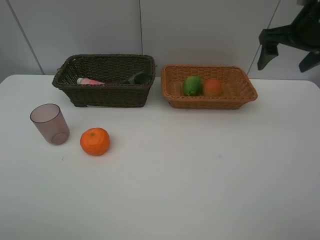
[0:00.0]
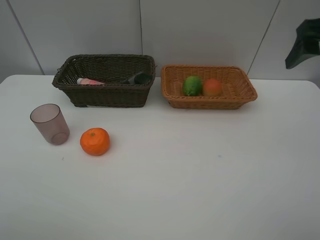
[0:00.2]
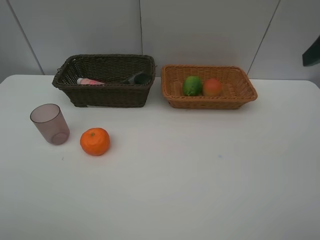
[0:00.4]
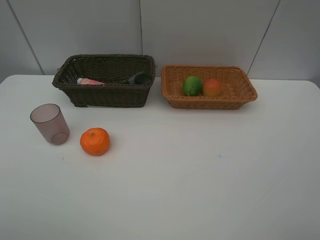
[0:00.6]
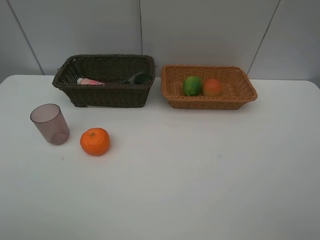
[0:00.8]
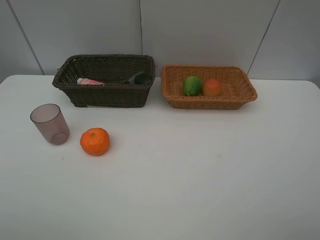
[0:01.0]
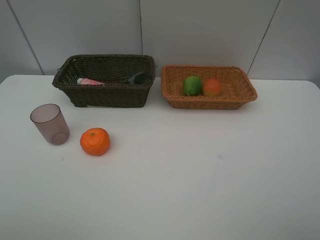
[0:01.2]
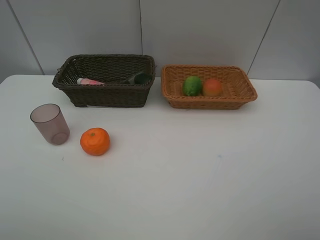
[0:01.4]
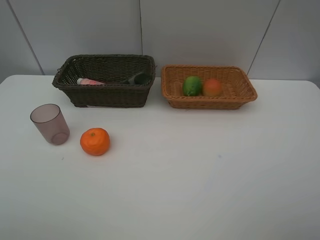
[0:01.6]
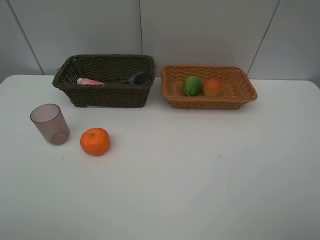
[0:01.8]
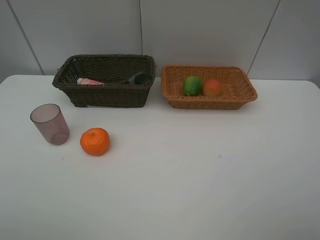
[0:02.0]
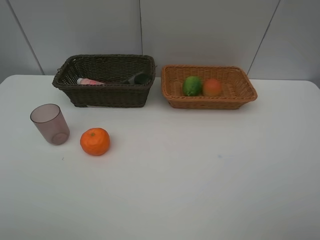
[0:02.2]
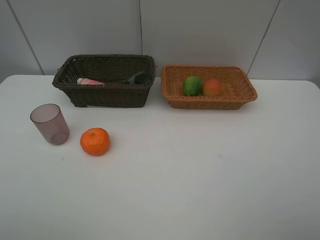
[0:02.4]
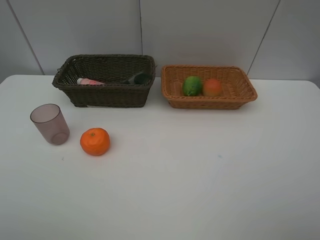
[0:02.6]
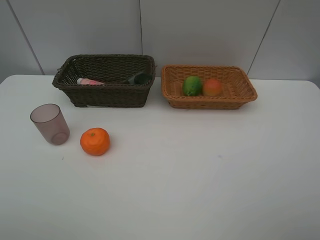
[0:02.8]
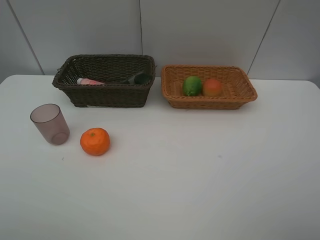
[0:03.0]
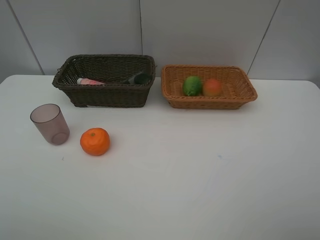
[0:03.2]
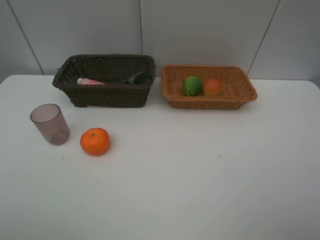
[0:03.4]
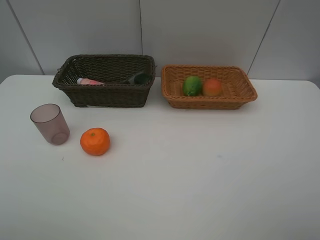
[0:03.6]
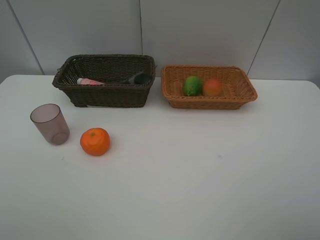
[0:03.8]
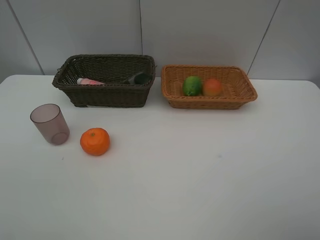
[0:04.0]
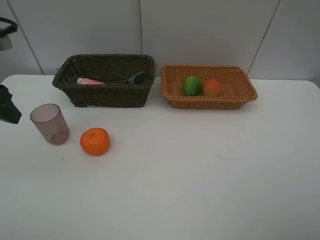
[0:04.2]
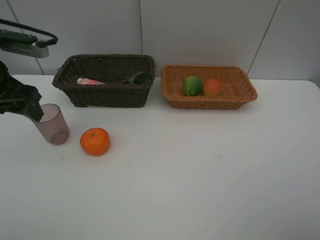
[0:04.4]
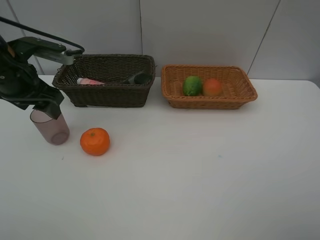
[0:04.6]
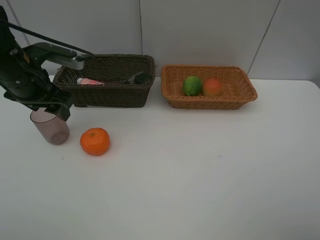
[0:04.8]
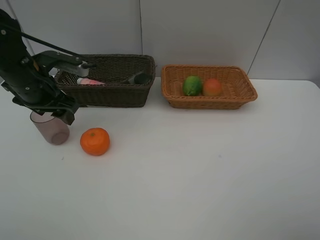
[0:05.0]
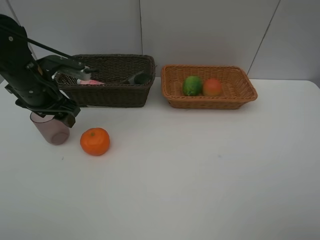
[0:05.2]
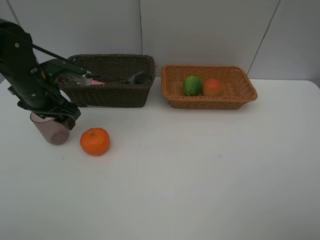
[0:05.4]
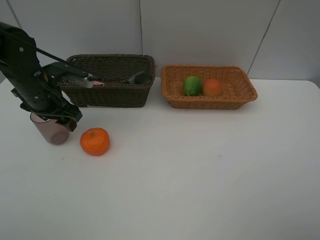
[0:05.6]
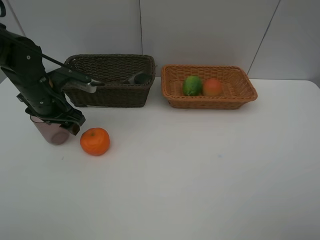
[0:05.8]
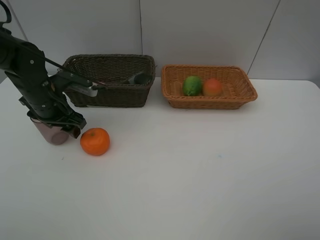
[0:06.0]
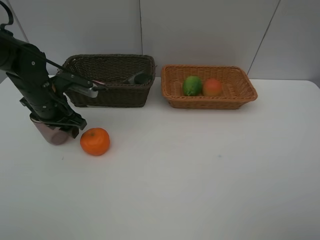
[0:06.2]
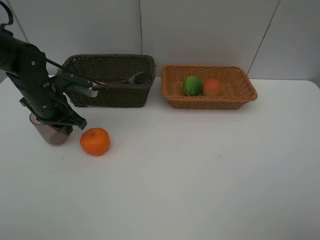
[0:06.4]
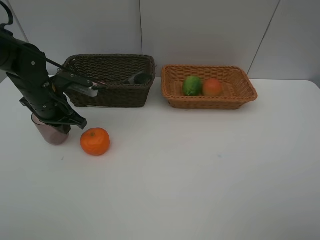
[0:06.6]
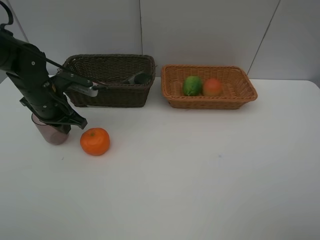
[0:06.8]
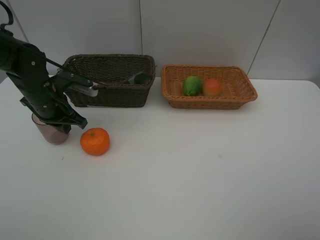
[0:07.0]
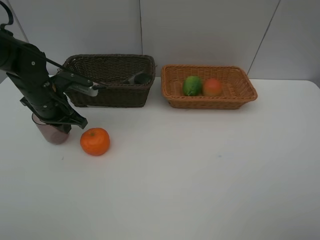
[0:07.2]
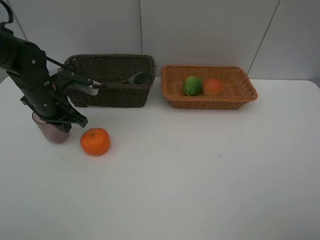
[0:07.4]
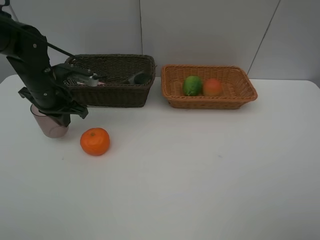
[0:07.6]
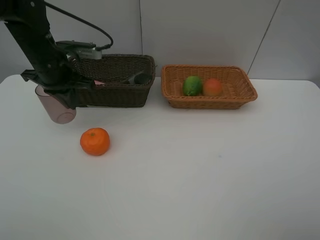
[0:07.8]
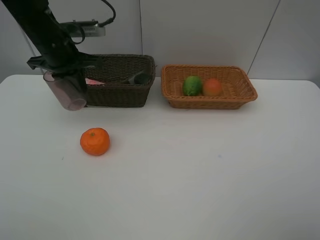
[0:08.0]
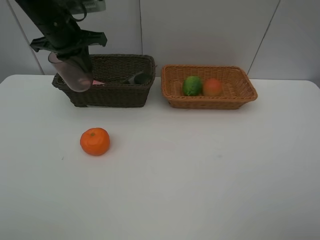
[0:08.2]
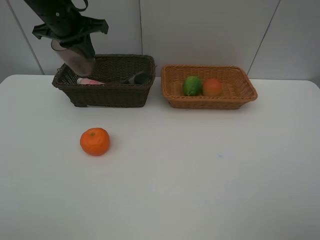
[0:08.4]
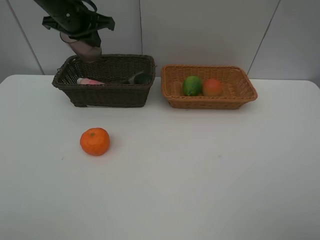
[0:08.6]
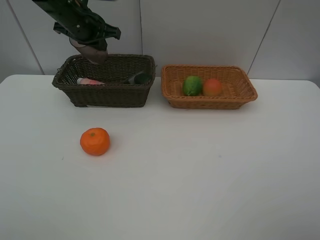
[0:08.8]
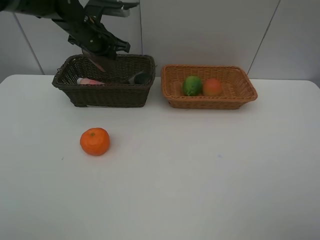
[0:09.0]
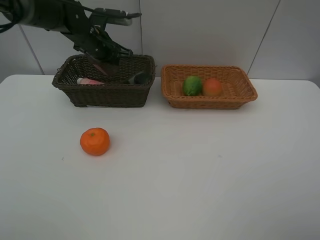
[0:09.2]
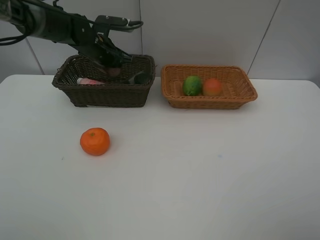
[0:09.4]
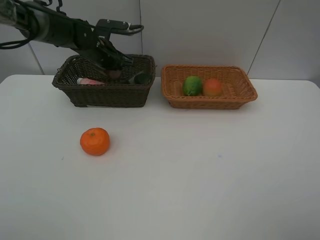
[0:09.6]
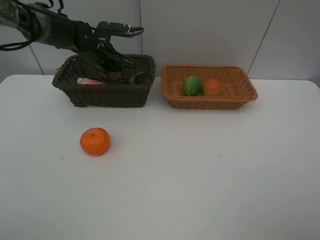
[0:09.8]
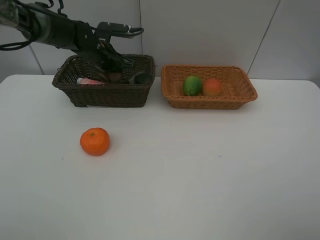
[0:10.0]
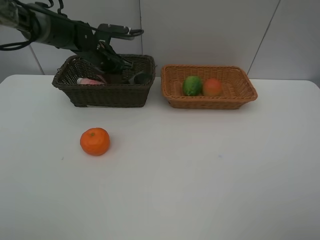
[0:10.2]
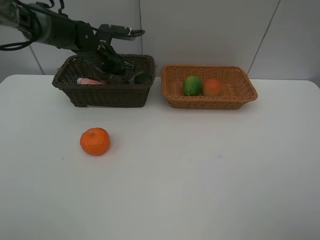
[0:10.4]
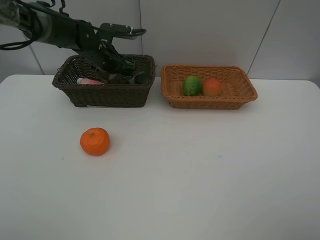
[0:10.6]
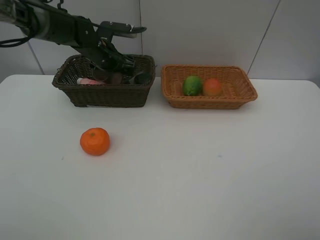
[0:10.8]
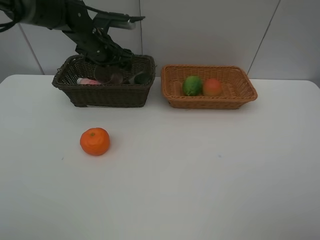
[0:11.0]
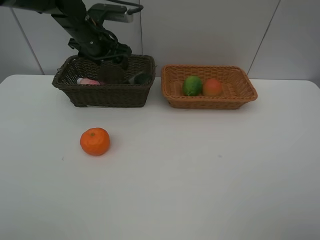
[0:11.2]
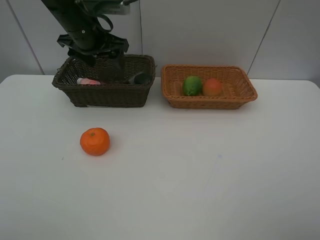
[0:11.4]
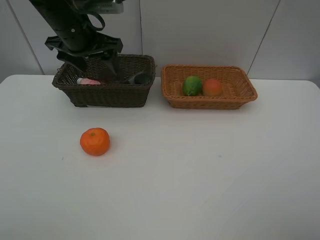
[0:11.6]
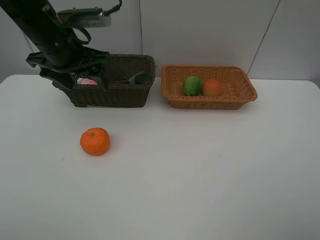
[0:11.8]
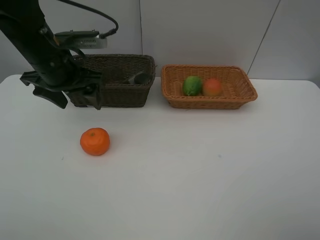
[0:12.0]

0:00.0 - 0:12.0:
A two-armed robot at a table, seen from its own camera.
Task of the whole recording: place multiple objects separately in different baskets.
0:00.0 - 0:01.6: The right gripper goes approximately 35 cm backward.
0:01.6 - 0:03.0: Both grippers stay about where they are.
0:03.0 - 0:04.4: The left gripper travels forward by some 25 cm.
0:04.4 - 0:06.0: The left gripper is displaced downward and forward by some 15 cm.
0:06.0 - 0:07.6: The left gripper closes.
0:07.6 - 0:09.0: The left gripper moves forward, to the right and upward, roughly 15 cm.
0:09.0 - 0:10.4: The left gripper heads downward, covering roughly 5 cm, and opens its fingers.
0:10.4 - 0:12.0: The left gripper moves backward and upward, roughly 20 cm, and opens its fingers.

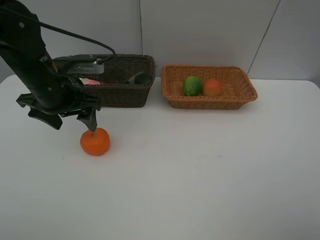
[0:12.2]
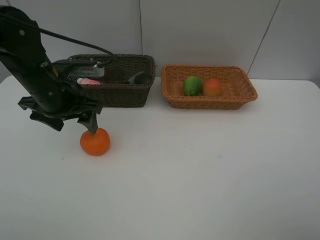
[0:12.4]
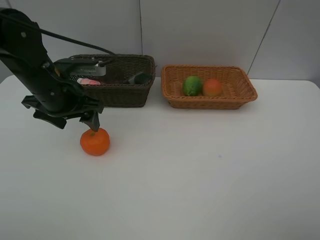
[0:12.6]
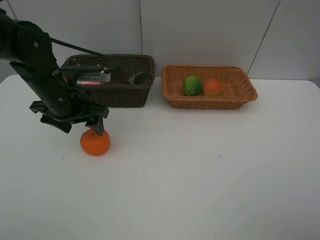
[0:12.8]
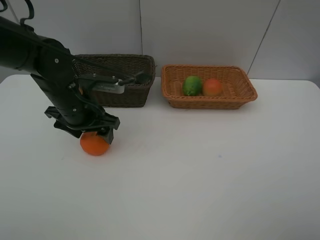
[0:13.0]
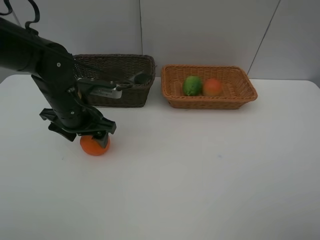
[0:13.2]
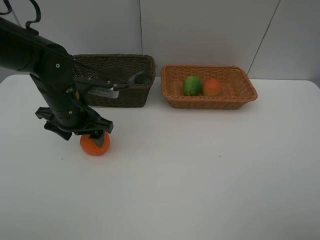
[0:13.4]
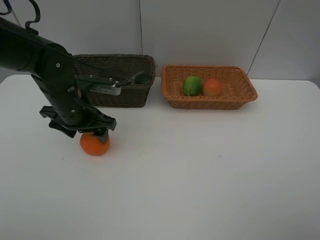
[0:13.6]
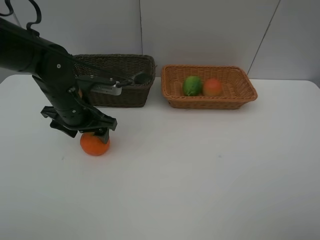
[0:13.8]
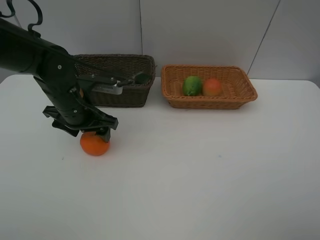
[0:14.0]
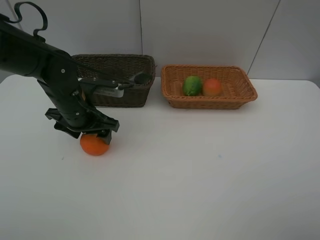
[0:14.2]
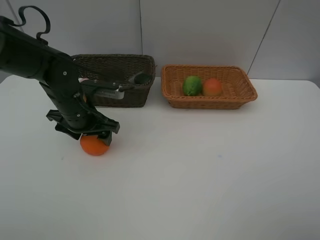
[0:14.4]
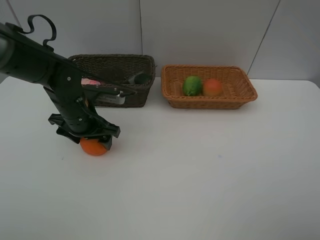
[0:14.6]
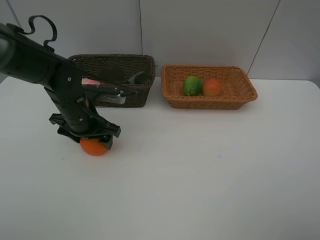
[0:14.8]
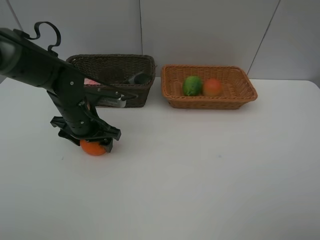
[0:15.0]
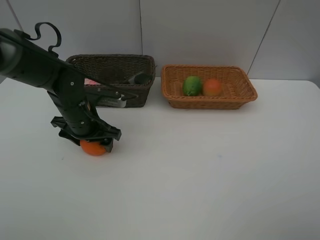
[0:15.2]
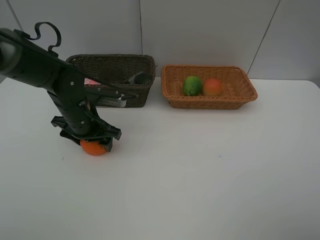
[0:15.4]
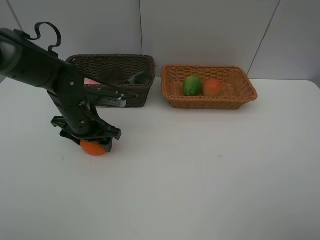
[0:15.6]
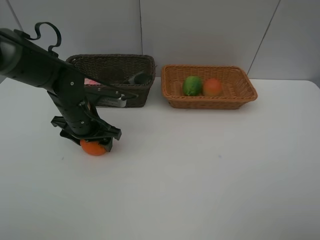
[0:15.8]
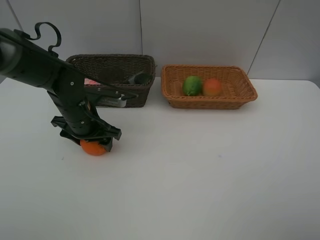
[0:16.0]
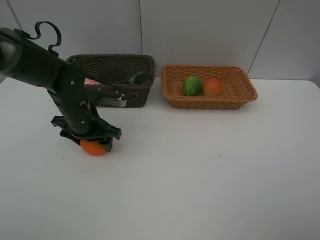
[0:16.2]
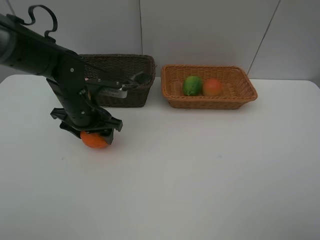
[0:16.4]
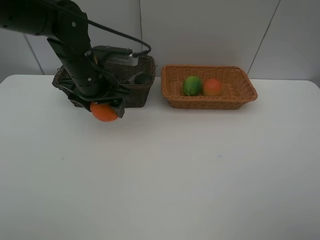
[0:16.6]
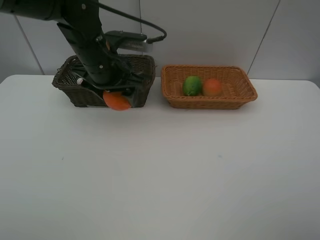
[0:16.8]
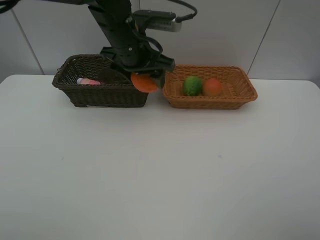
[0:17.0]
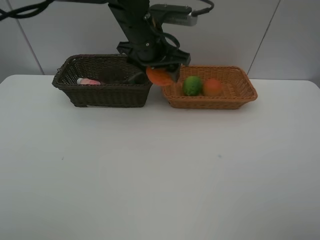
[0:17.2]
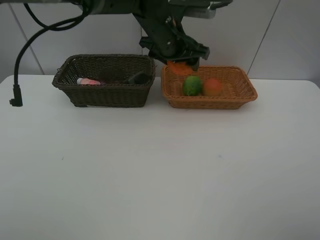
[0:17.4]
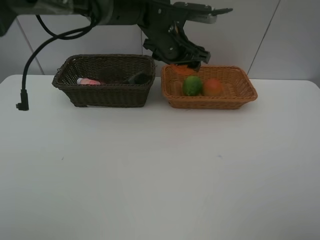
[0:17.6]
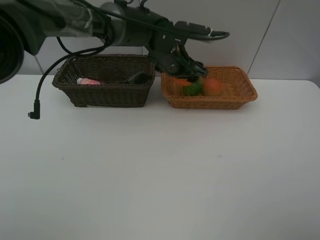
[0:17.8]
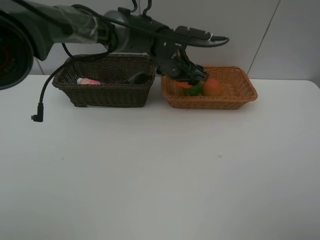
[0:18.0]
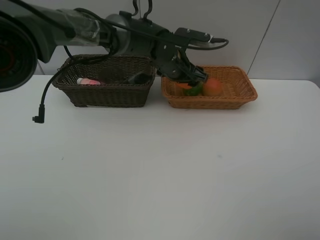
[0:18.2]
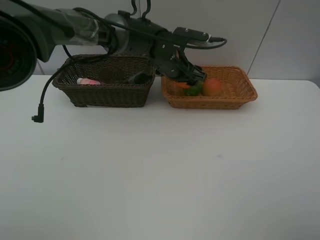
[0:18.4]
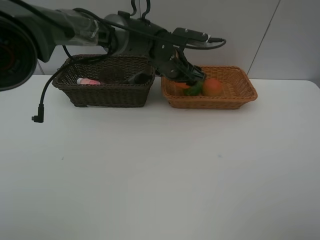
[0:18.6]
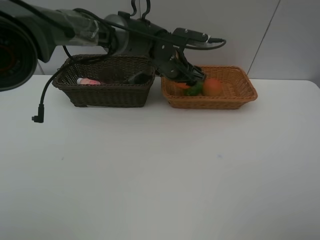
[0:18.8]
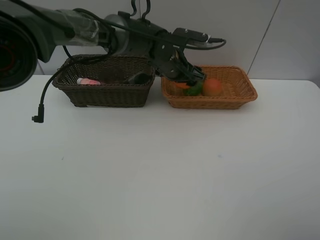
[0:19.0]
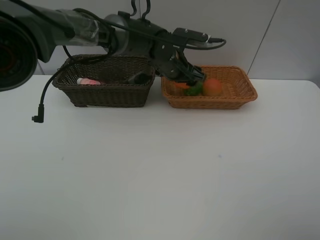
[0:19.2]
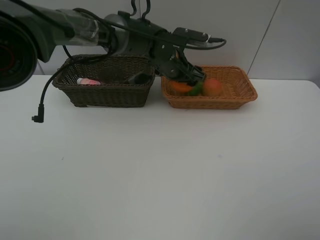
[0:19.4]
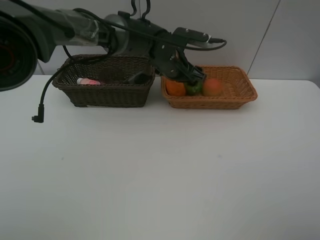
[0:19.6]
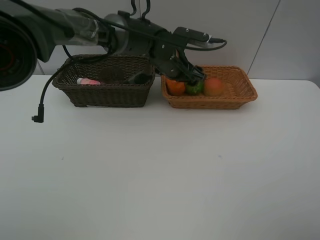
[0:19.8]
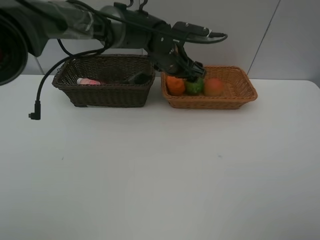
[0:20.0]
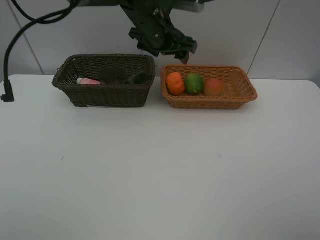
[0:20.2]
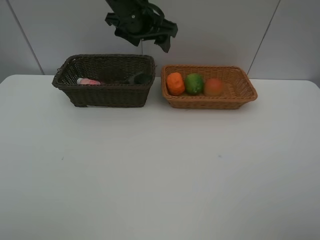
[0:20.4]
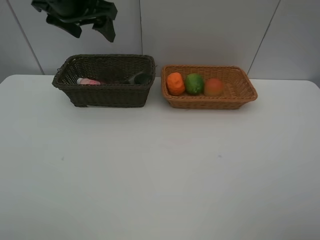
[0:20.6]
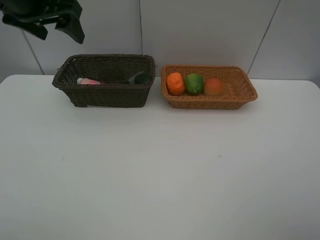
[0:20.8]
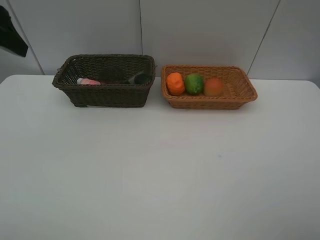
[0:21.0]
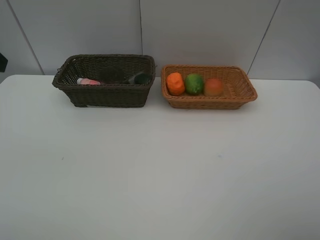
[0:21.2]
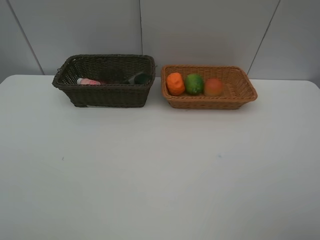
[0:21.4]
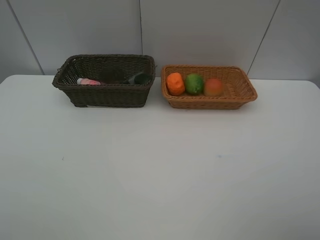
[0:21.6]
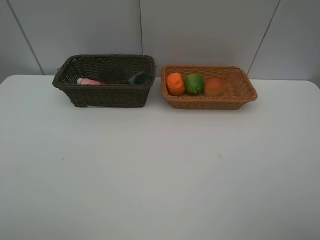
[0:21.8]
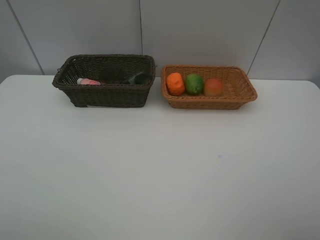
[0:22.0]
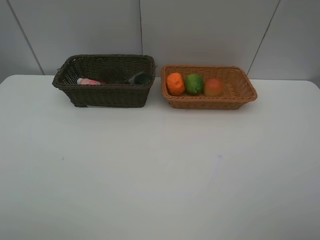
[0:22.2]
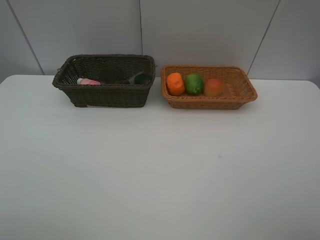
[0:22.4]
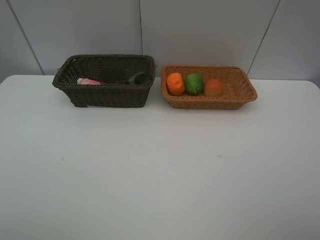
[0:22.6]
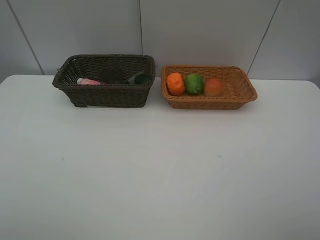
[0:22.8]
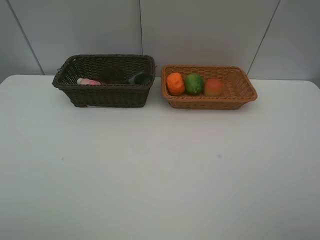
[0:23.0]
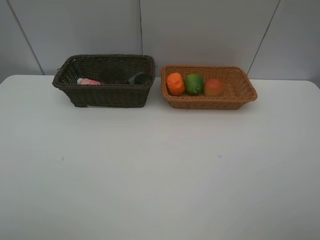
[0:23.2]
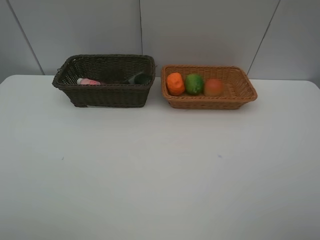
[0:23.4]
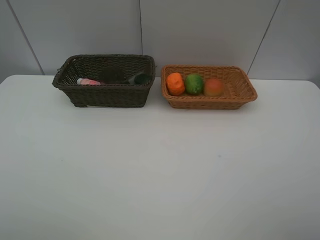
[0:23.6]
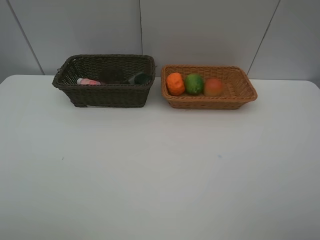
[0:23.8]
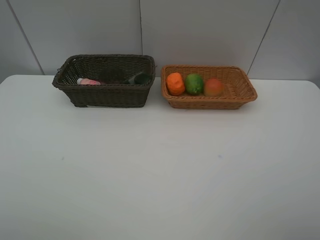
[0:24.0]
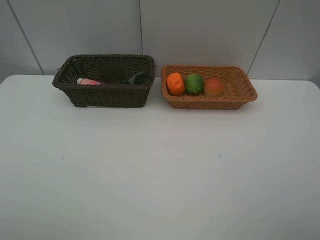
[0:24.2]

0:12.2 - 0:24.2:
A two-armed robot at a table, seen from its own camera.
Task of the whole recording: place multiple objects separately in different baskets.
0:12.2 - 0:13.8: The left gripper shifts by some 5 cm.
0:13.8 - 0:15.2: There are only small adjustments of the grippers.
0:15.2 - 0:16.6: The left gripper shifts about 10 cm upward.
0:16.6 - 0:18.2: The left gripper heads to the right and forward, covering roughly 20 cm.
0:18.2 - 0:19.8: Neither gripper changes place.
0:19.8 - 0:21.2: The left gripper travels to the left, backward and upward by approximately 40 cm.
